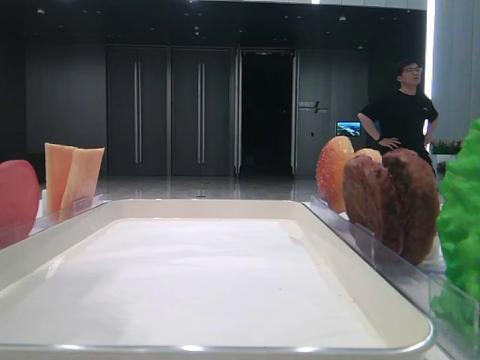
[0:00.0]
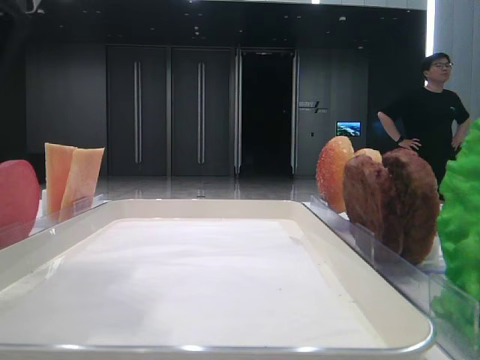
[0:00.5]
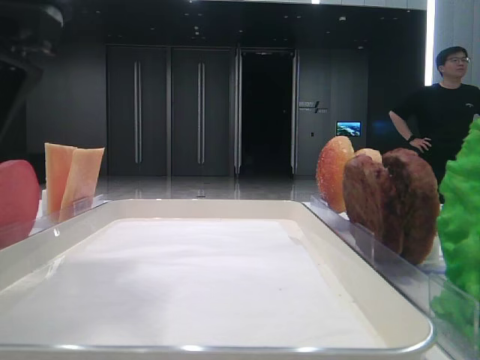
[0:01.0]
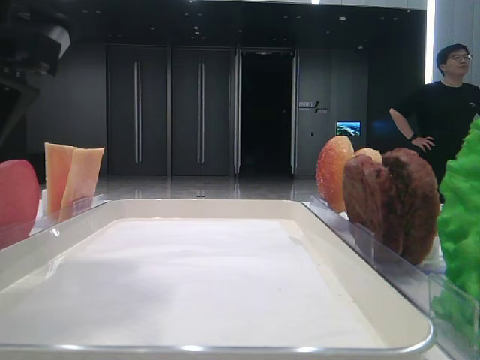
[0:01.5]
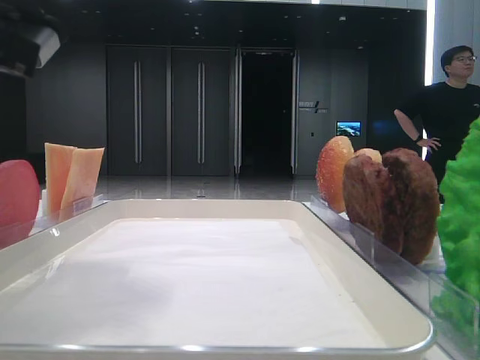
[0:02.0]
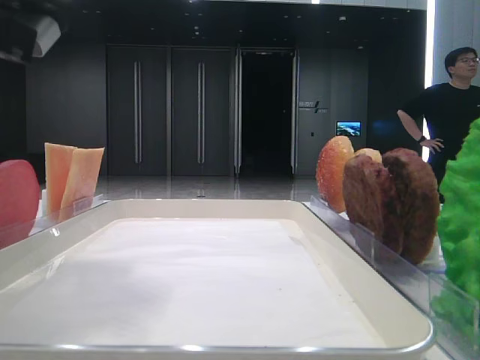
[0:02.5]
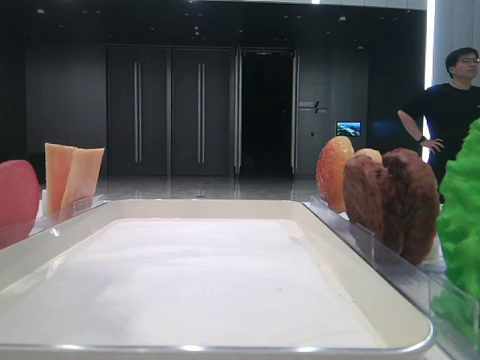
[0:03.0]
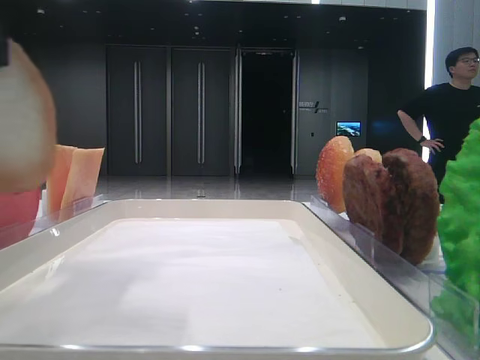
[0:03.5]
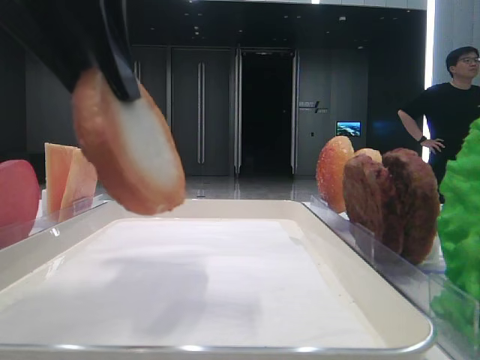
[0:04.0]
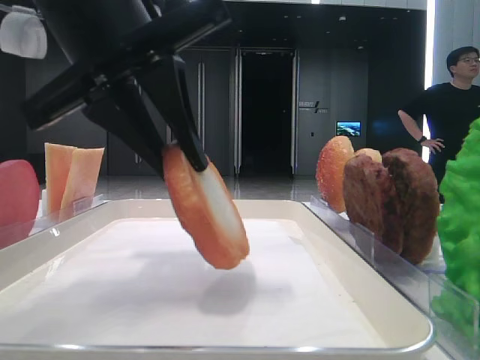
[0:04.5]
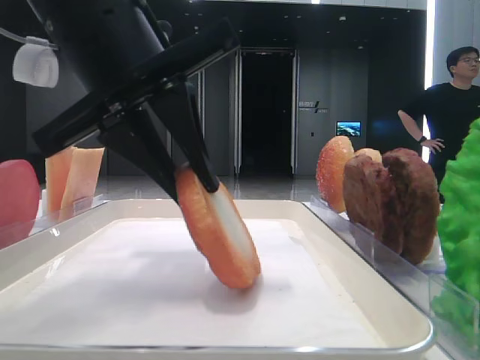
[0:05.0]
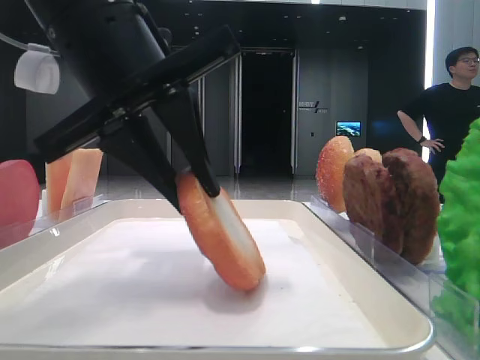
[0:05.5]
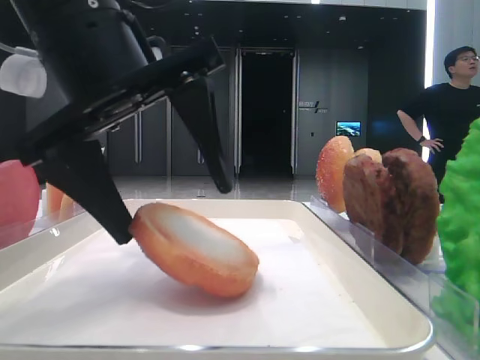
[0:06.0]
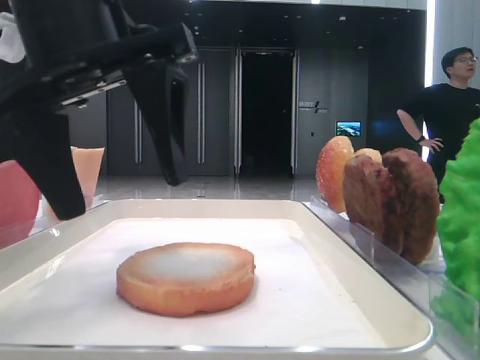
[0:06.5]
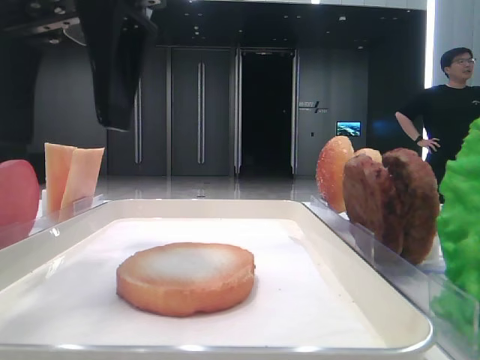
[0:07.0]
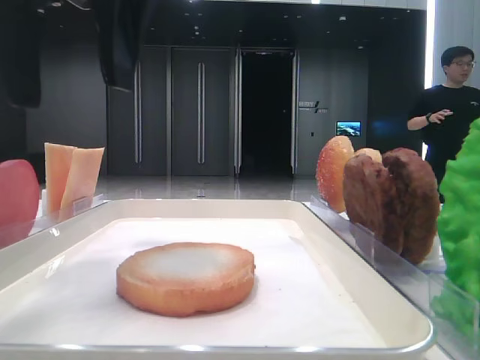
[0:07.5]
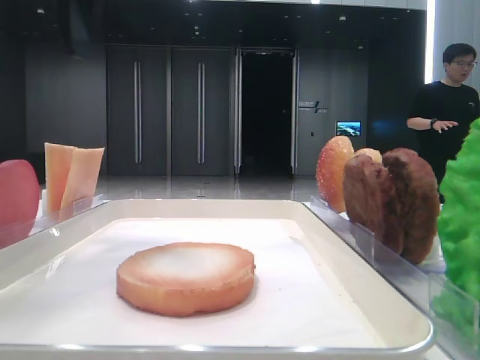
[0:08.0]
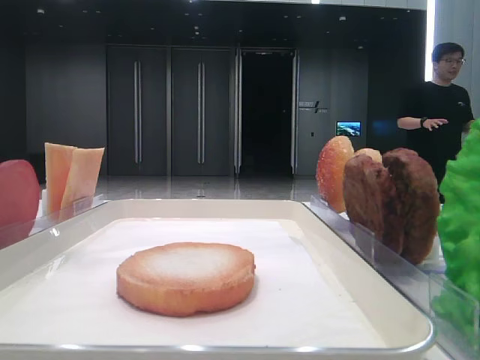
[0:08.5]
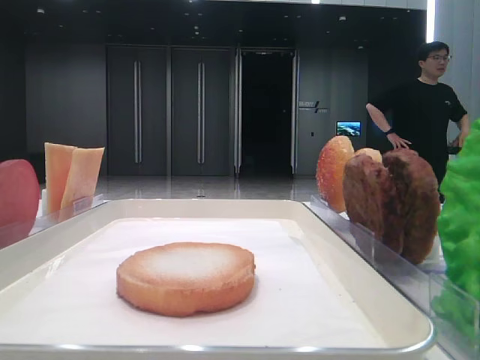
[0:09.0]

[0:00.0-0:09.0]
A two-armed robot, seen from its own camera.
Step, 0:00.0 to 0:02.0: Pick up the bottom bread with the left hand.
Step, 0:02.5 to 0:06.0: Place the bread on the tray with the left hand.
0:00.0 to 0:02.0: The left gripper is displaced downward by some 5 cm, and closes its fingers.
0:02.0 to 0:04.5: The left gripper travels to the right by approximately 5 cm.
0:04.5 to 0:07.0: The left gripper opens up.
0:07.0 to 0:09.0: The left gripper moves to the left and upward, roughly 20 cm.

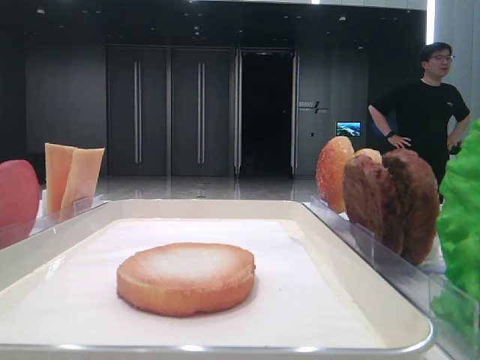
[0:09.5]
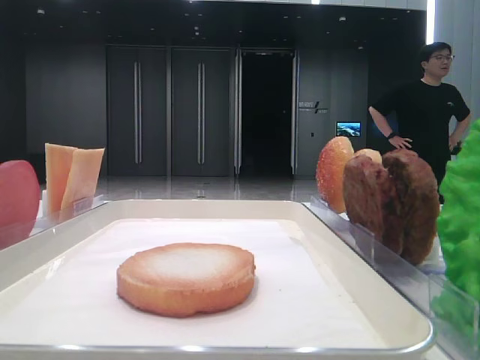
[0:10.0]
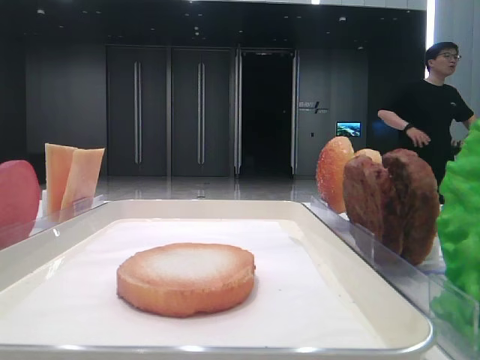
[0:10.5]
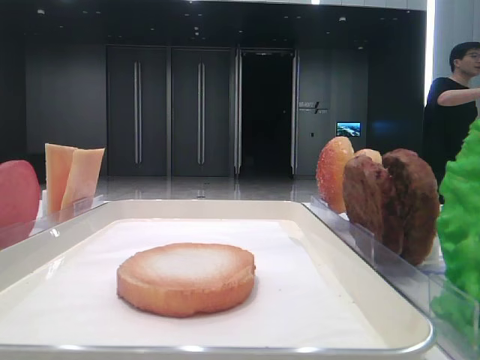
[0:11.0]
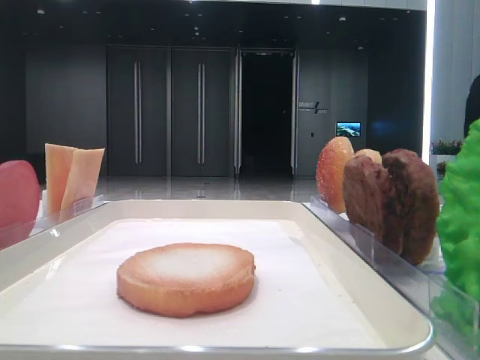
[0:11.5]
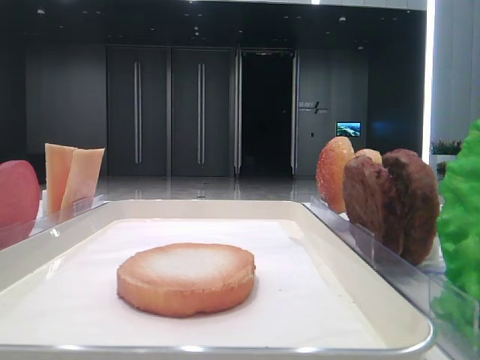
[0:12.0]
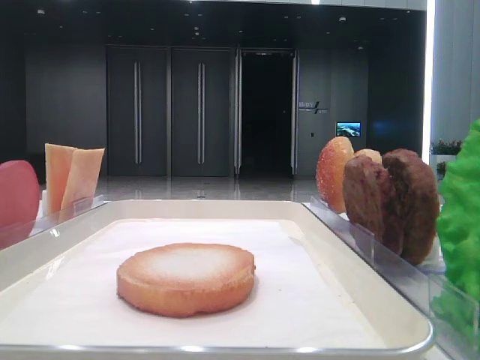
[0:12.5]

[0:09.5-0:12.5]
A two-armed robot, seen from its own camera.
0:11.0 to 0:12.5: The grippers stay close to where they were, moving slightly.
